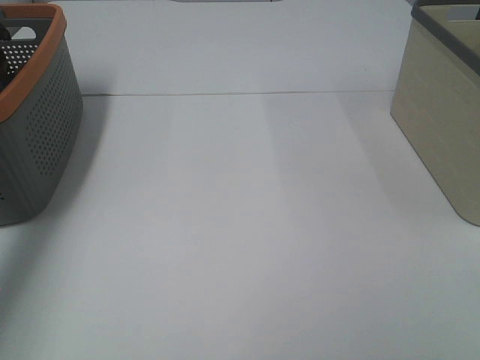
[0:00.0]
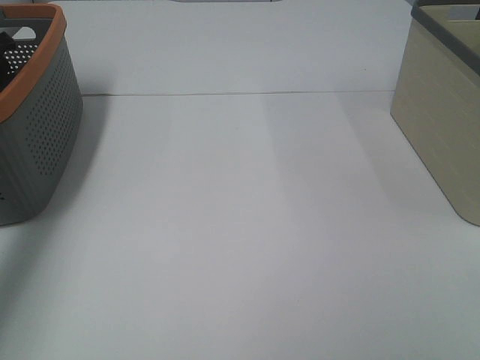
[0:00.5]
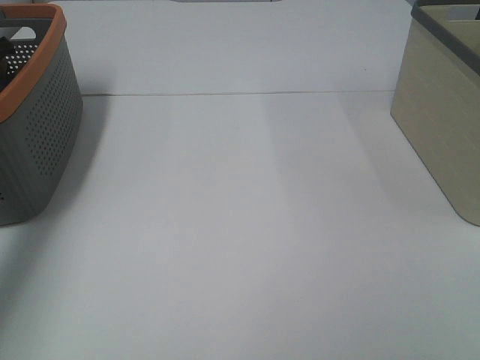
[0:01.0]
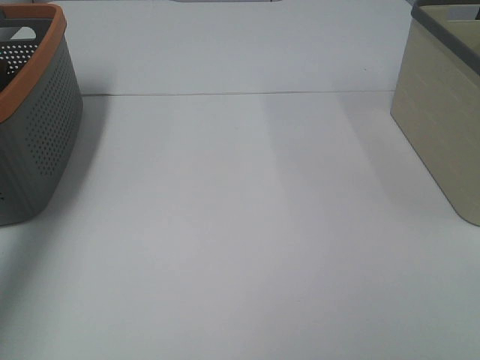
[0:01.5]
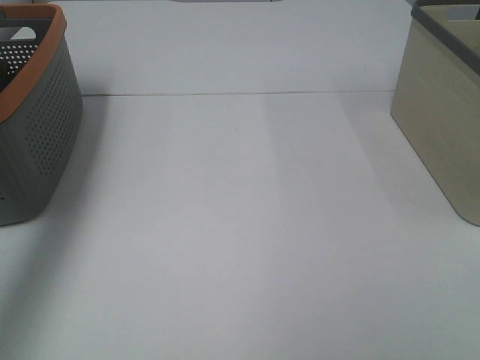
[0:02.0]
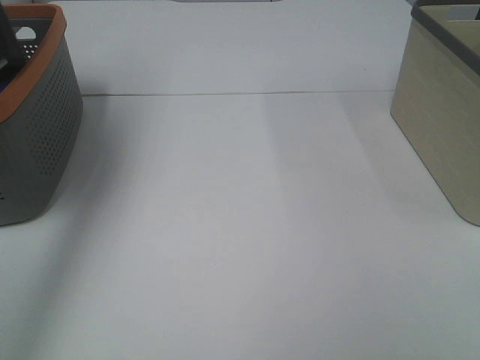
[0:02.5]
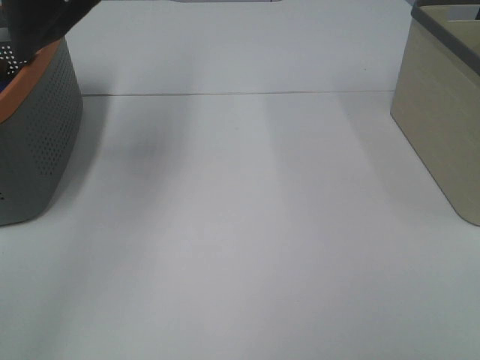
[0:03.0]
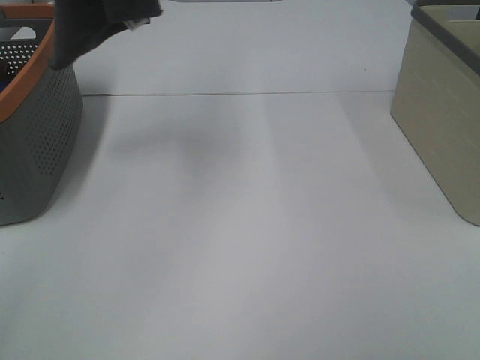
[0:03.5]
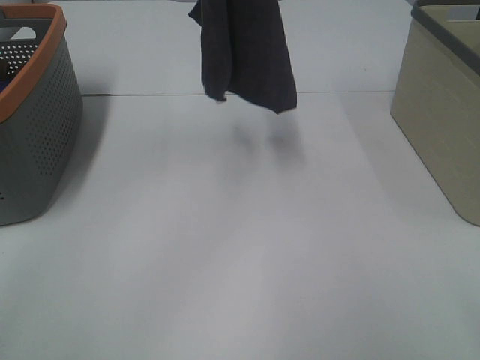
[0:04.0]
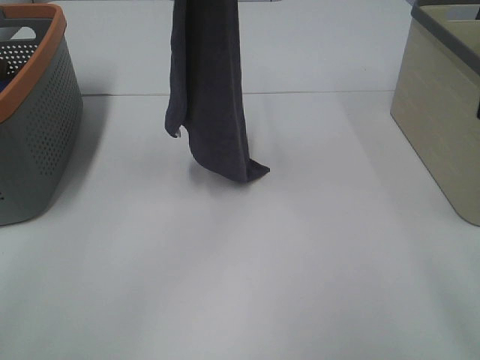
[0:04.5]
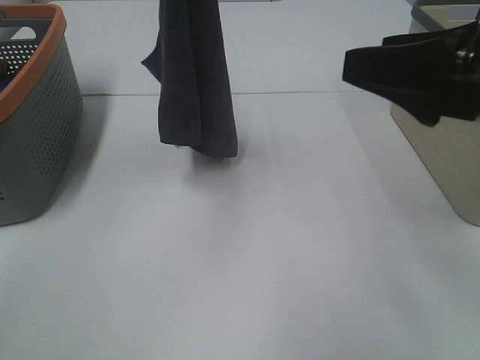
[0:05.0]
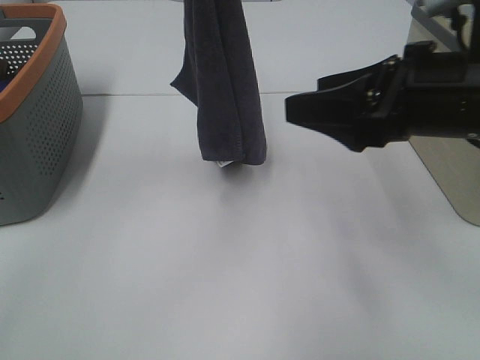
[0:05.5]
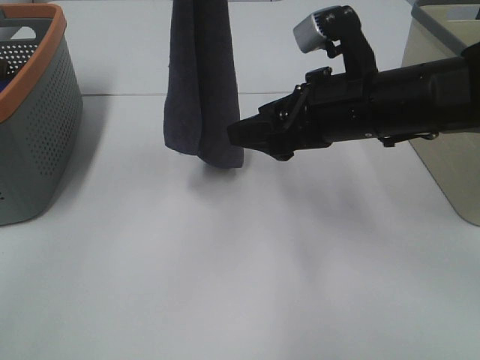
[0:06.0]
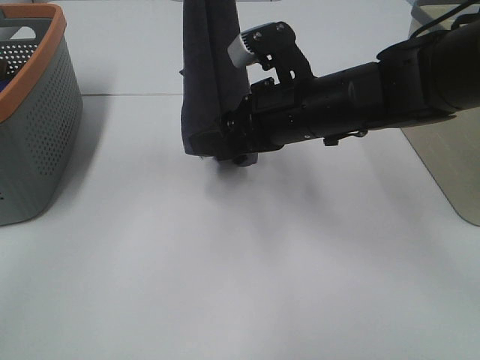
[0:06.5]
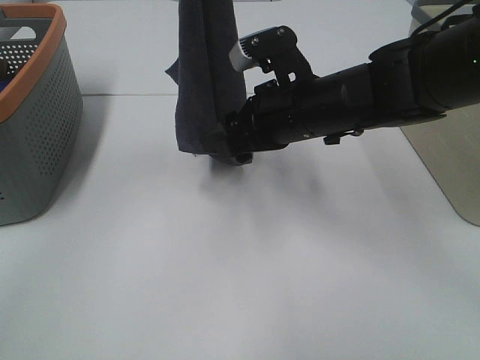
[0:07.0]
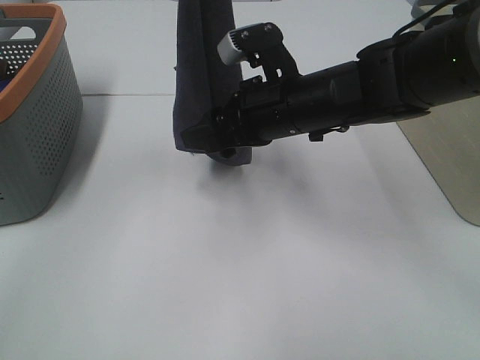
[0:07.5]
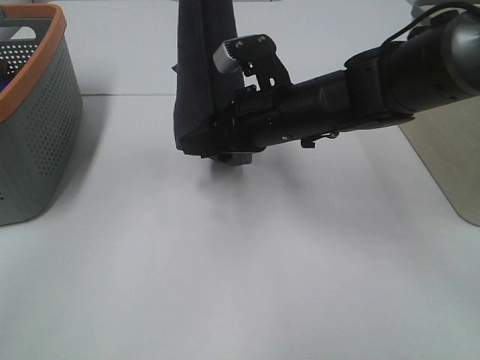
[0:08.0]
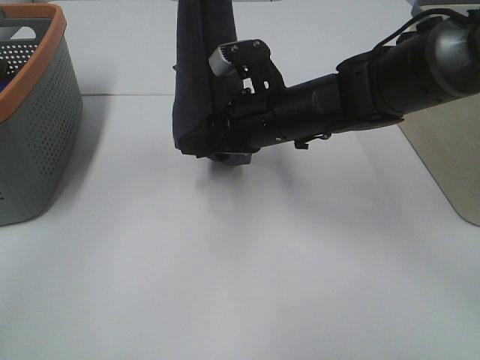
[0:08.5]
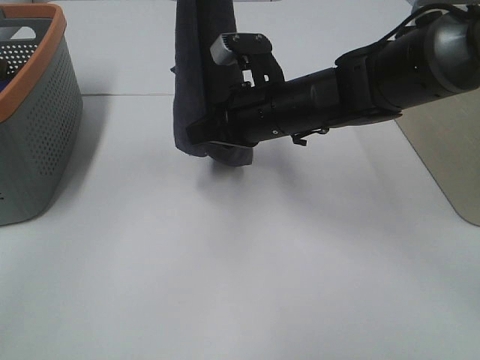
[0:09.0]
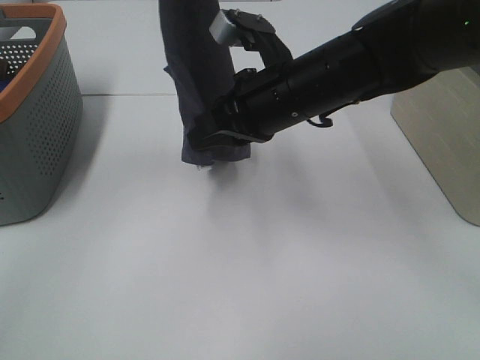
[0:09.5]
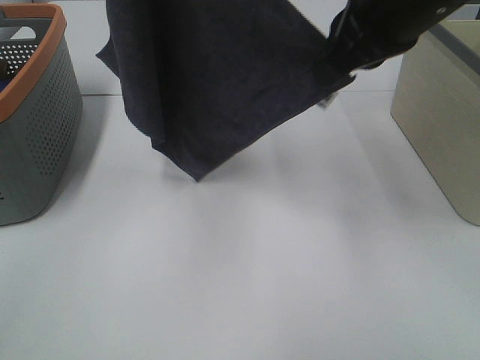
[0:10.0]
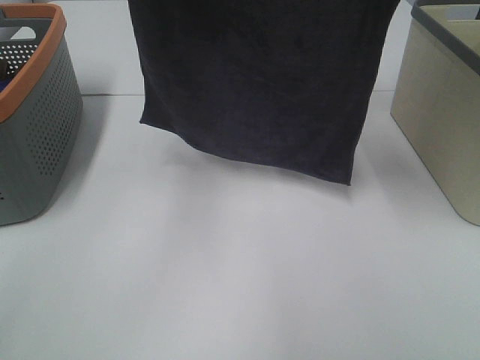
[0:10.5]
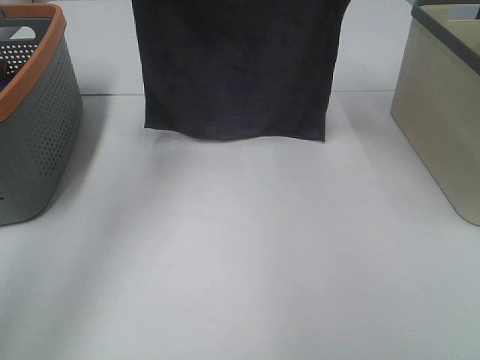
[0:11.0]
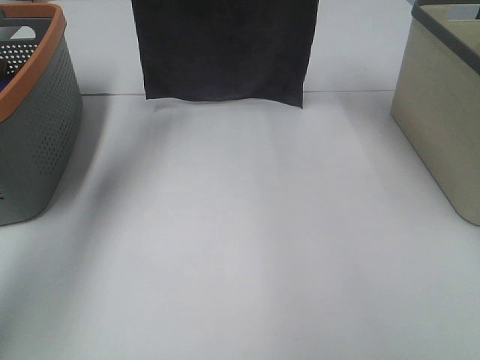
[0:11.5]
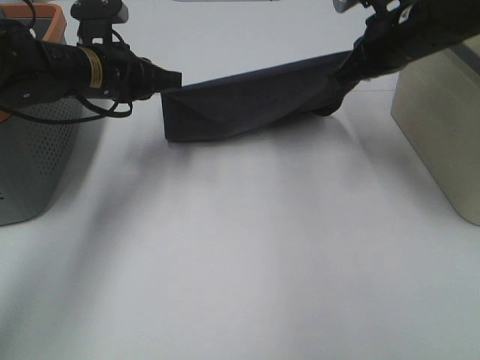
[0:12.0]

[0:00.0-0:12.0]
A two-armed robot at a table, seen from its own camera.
Task of the whole recording: Remove the towel and place it.
Step, 0:02.5 to 0:07.5: Right hand: grab a corner of the grey towel and straighten it.
Step, 0:08.0 to 0:09.5: Left hand: spread the grey towel flat on the table.
Step, 0:08.0 to 0:09.5: Right hand: spread the grey towel flat on the table.
0:00.0 to 0:02.0: The left gripper shifts some 20 cm upward, and closes its fingers.
0:02.0 to 0:04.0: The left gripper goes approximately 25 cm to the right.
0:04.0 to 0:06.0: The right gripper moves forward, to the left and downward, about 30 cm.
0:06.0 to 0:08.0: The right gripper is displaced to the left by about 5 cm.
0:08.0 to 0:10.0: The left gripper ends up about 5 cm from where it was; the right gripper is displaced upward and to the right by some 20 cm, and closes its fingers.
0:10.0 to 0:12.0: The right gripper is displaced downward, forward and to the right by approximately 15 cm. The left gripper heads downward, covering some 30 cm.

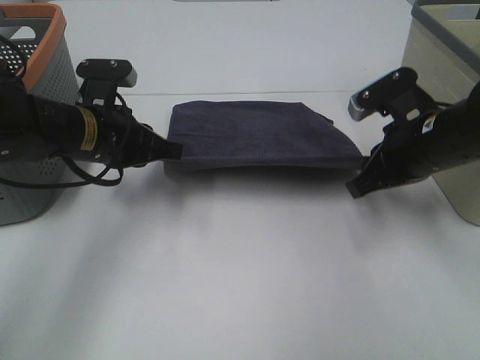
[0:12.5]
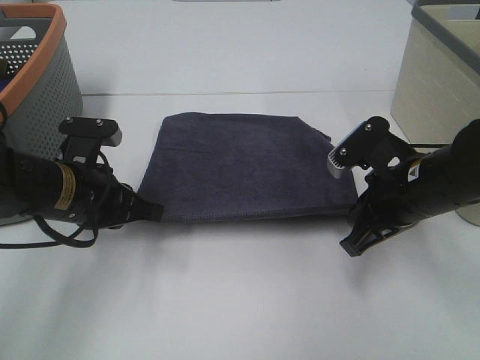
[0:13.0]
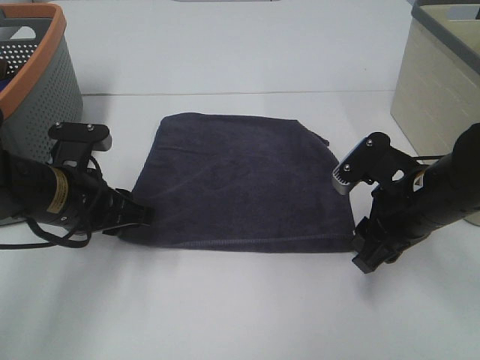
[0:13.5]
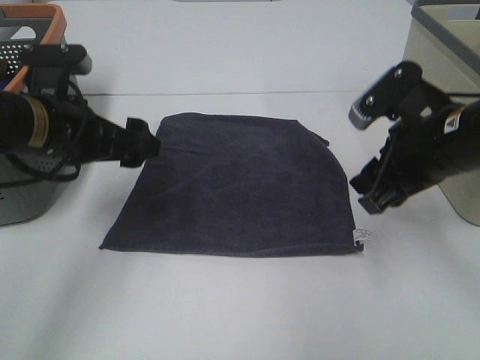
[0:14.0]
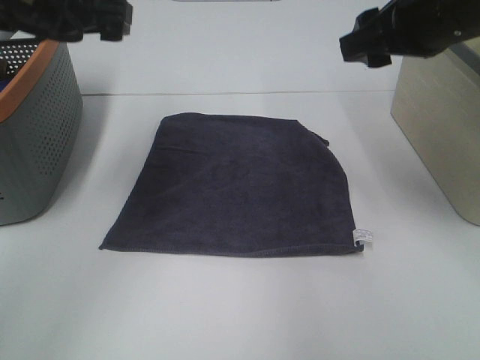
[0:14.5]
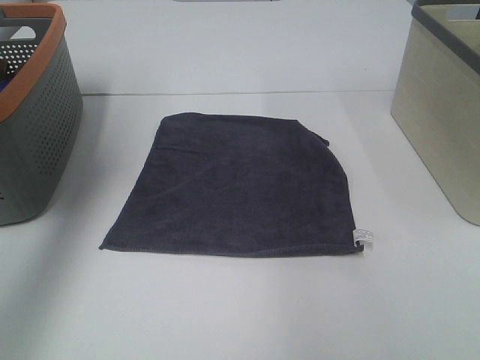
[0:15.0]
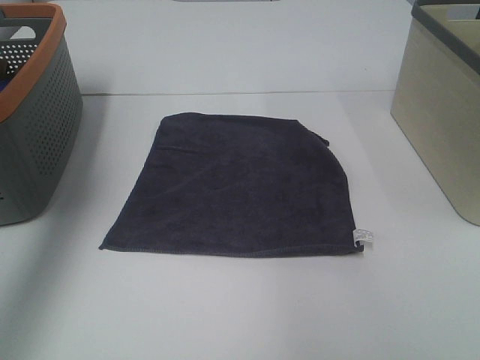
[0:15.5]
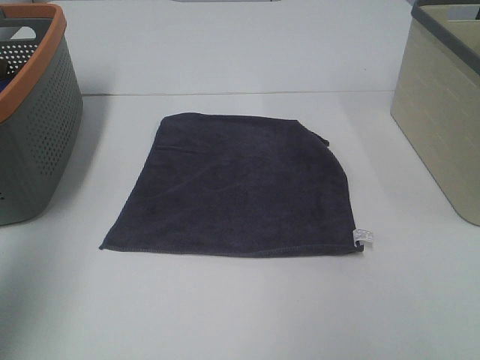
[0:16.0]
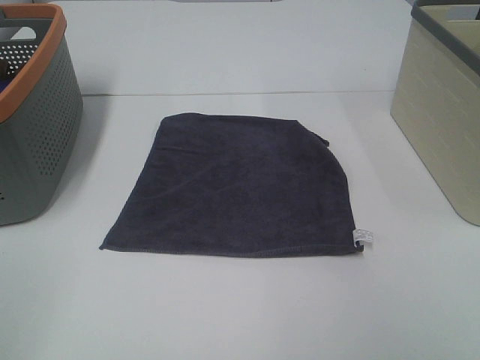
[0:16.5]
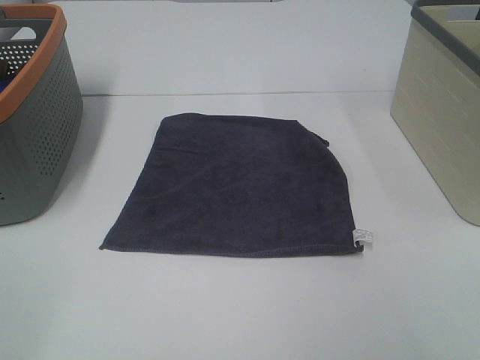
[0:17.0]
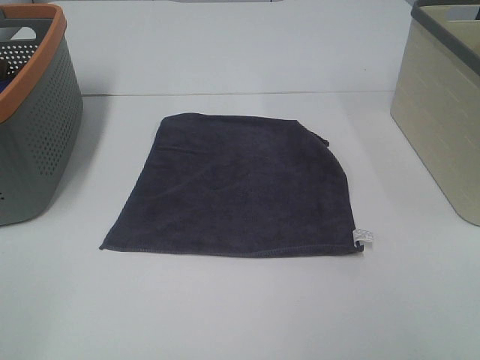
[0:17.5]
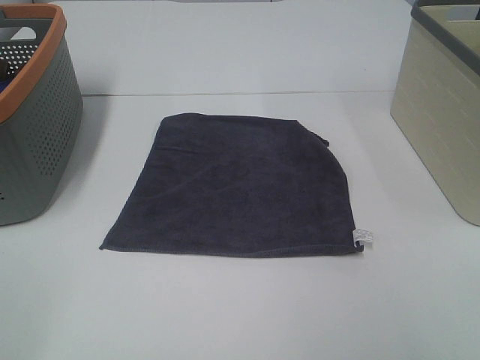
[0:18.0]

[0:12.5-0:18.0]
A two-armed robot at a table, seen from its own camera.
Task of the whole recording: Remove the towel and place it.
0:12.5 to 0:14.5: Both grippers travel together upward, some 15 cm. The right gripper opens; the left gripper opens up.
0:14.5 to 0:16.0: The left gripper goes approximately 25 cm backward and to the left; the right gripper shifts some 20 cm backward and to the right.
0:16.0 to 0:18.0: The left gripper heads backward and downward, covering some 15 cm.

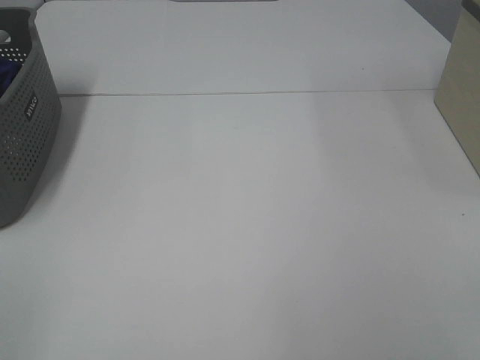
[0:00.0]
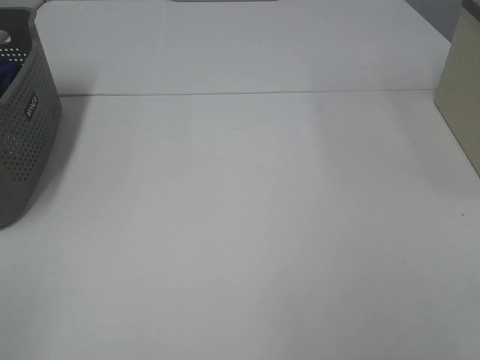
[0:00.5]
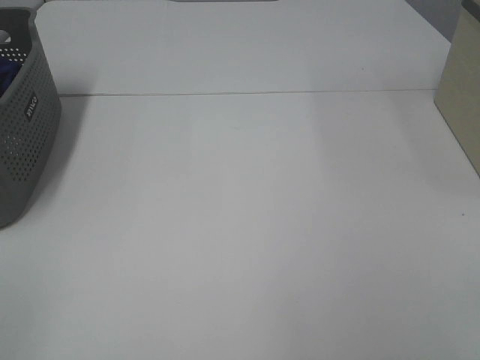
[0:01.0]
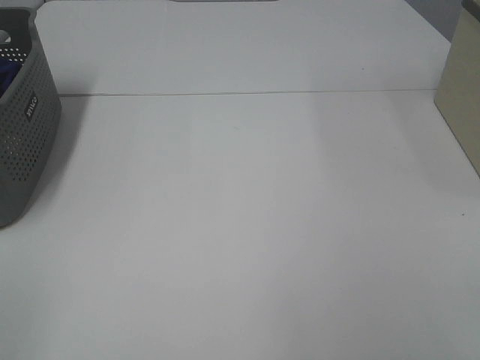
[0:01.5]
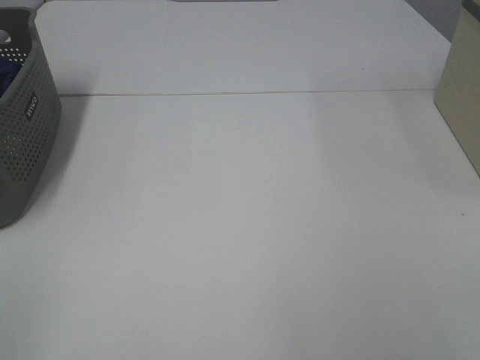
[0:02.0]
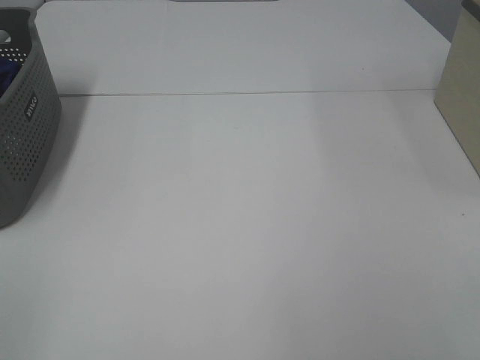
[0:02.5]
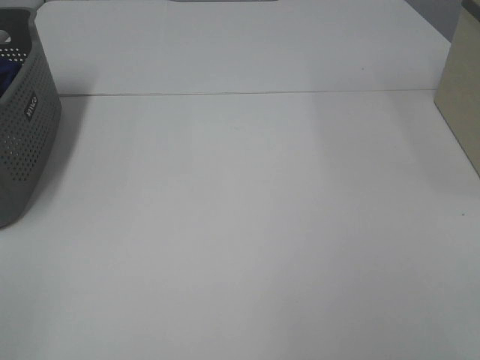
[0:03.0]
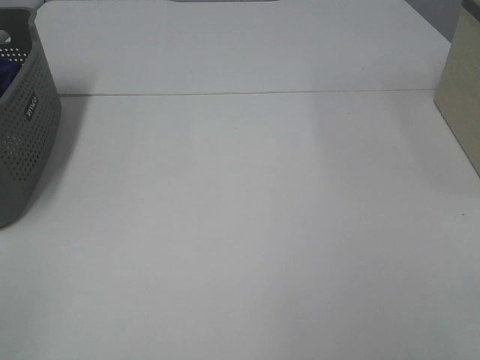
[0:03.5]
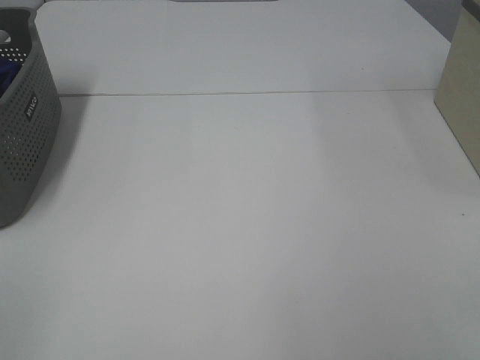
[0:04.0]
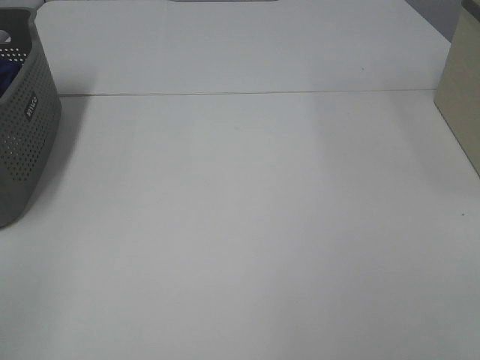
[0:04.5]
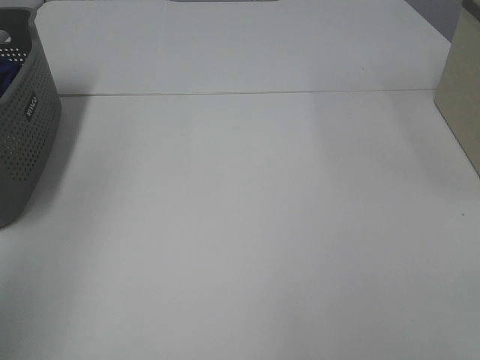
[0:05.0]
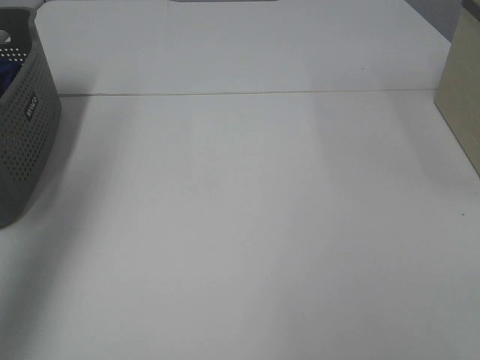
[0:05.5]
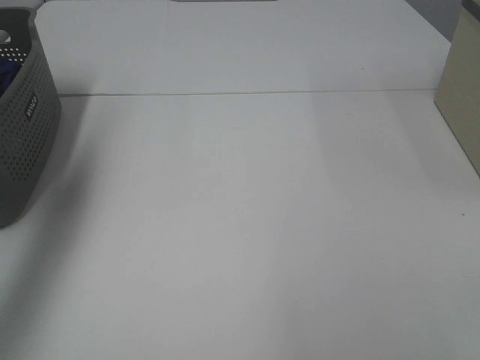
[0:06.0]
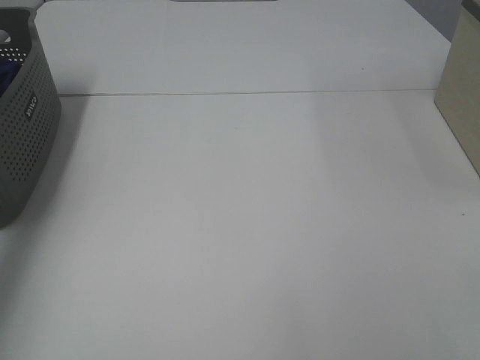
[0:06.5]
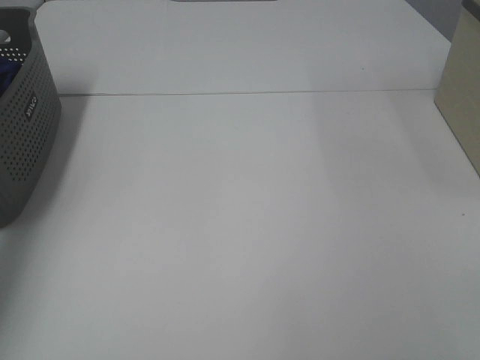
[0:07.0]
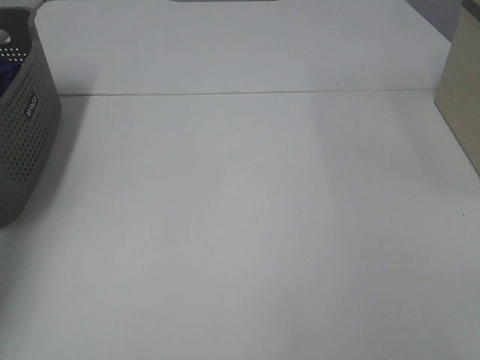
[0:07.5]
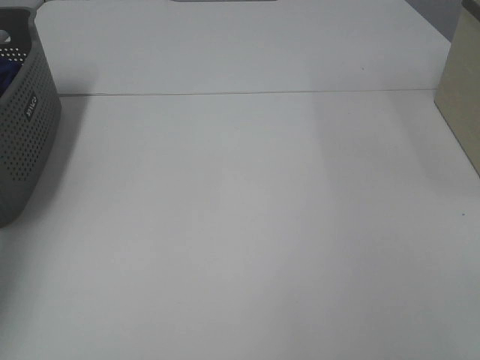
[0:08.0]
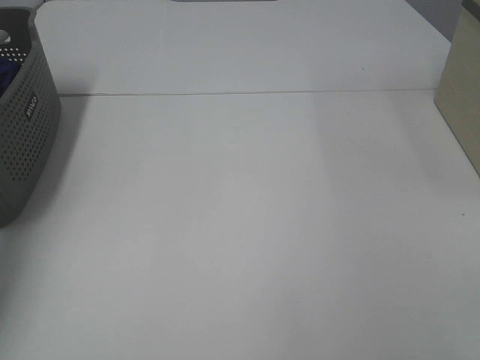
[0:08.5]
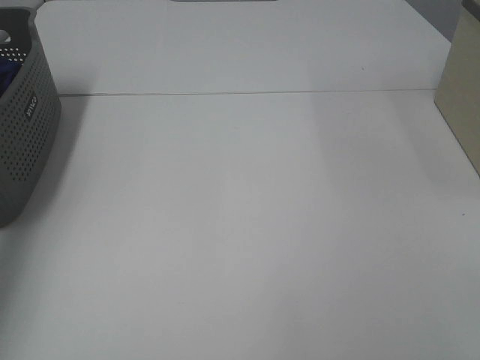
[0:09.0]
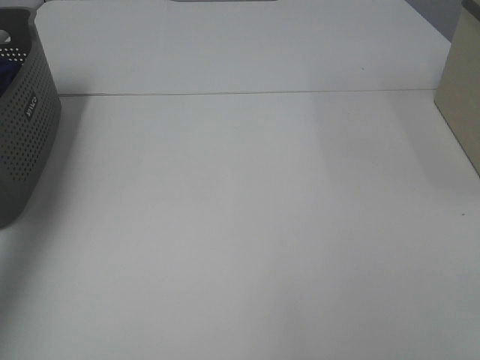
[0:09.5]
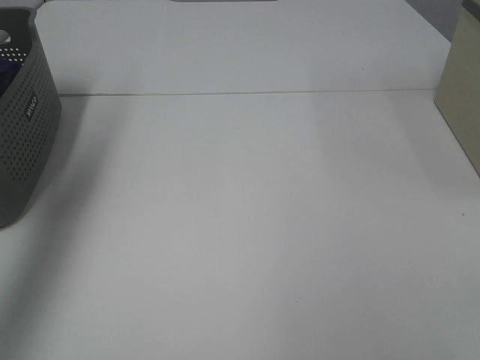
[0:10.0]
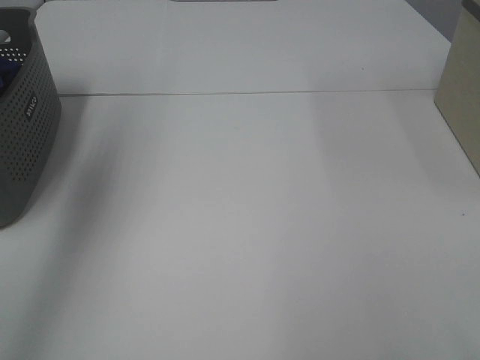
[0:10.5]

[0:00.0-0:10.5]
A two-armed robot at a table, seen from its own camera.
Task of the whole recording: Remove the towel and place it.
0:00.0 to 0:04.0: Both grippers stay about where they are.
0:04.0 to 0:06.5: The left gripper travels forward by approximately 40 cm.
0:08.5 to 0:10.5: The left gripper moves upward and to the right, some 35 cm.
